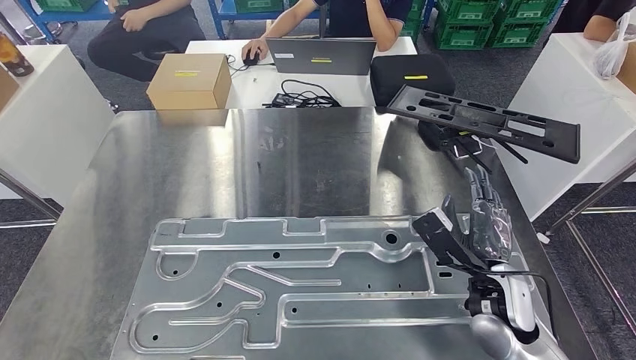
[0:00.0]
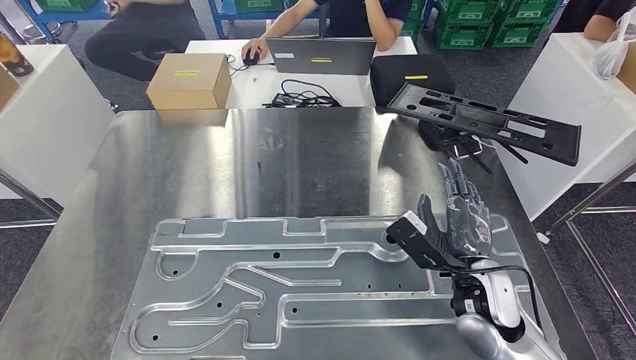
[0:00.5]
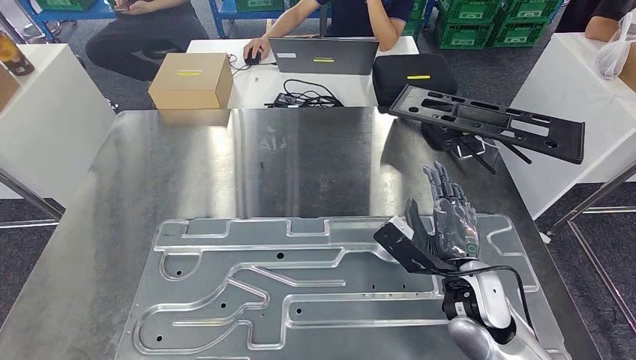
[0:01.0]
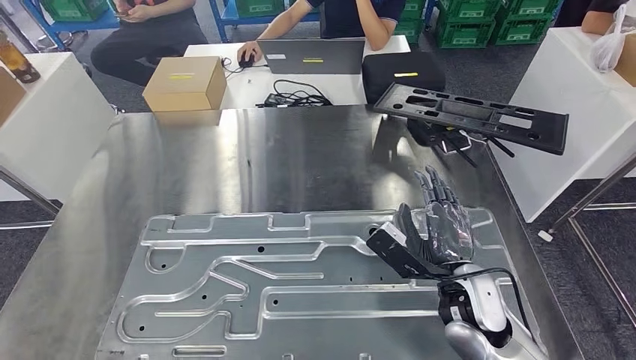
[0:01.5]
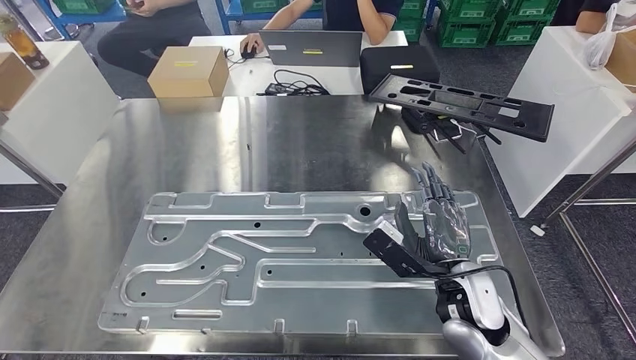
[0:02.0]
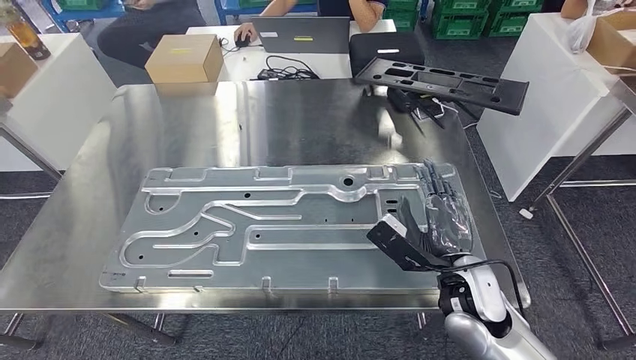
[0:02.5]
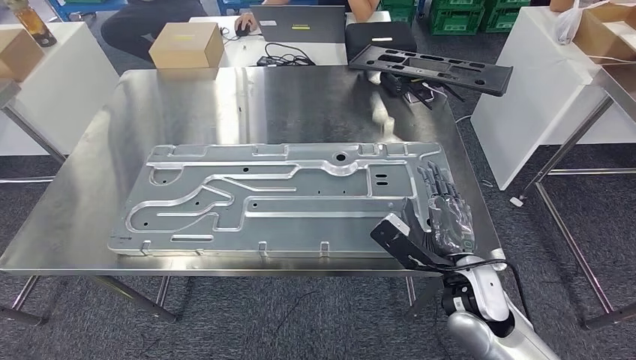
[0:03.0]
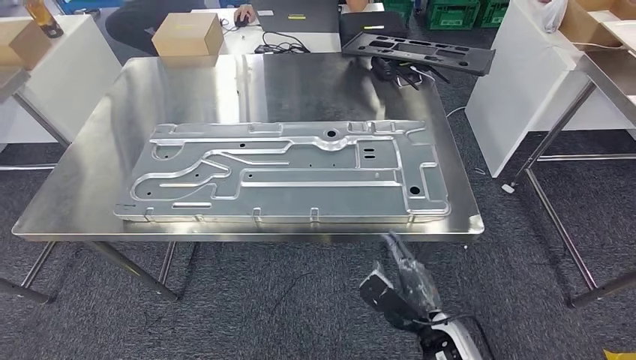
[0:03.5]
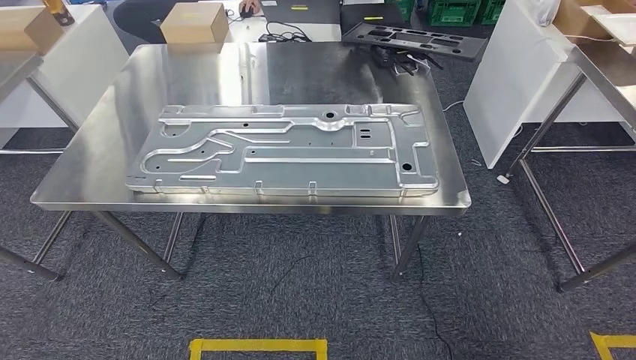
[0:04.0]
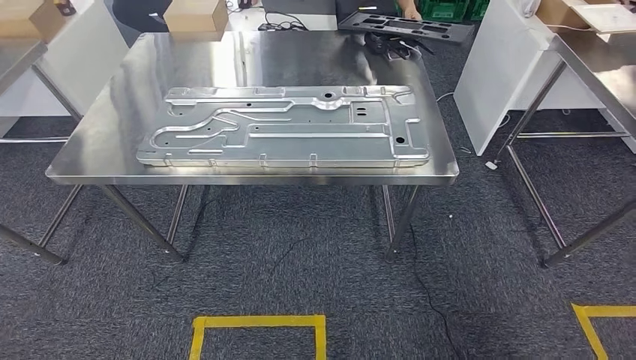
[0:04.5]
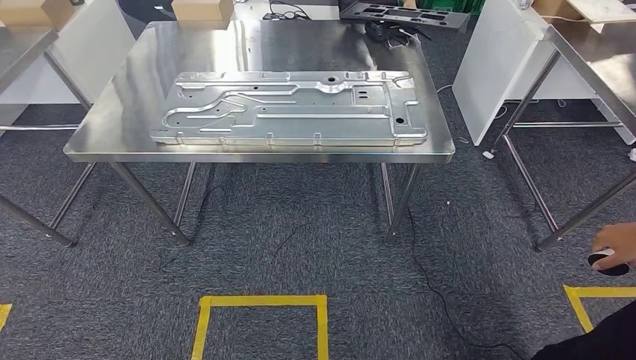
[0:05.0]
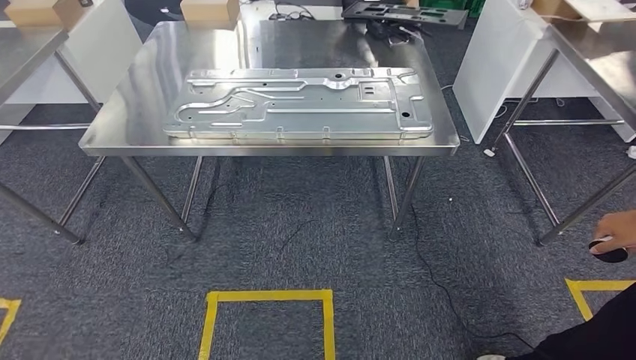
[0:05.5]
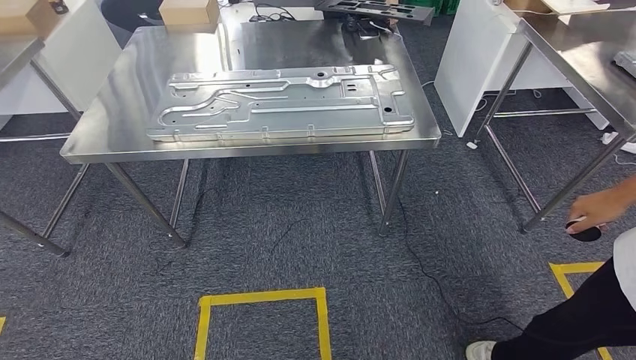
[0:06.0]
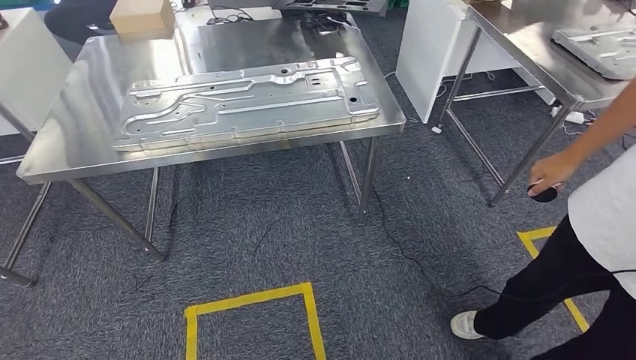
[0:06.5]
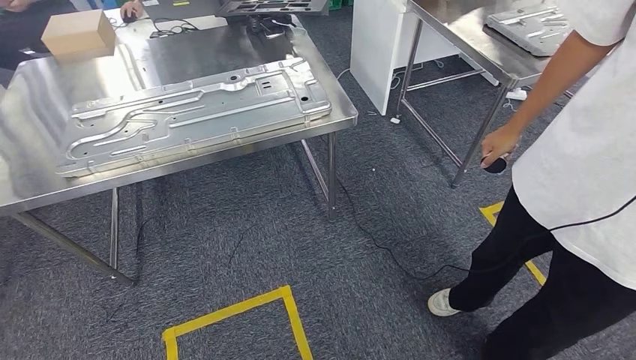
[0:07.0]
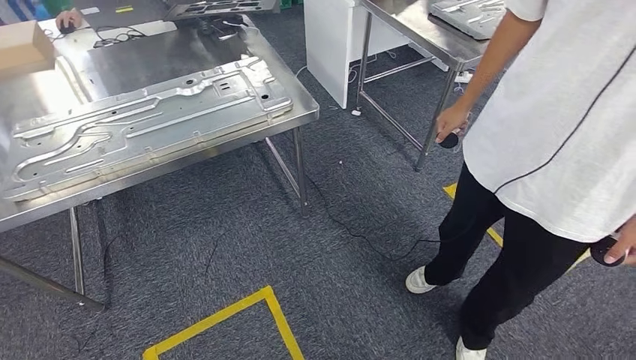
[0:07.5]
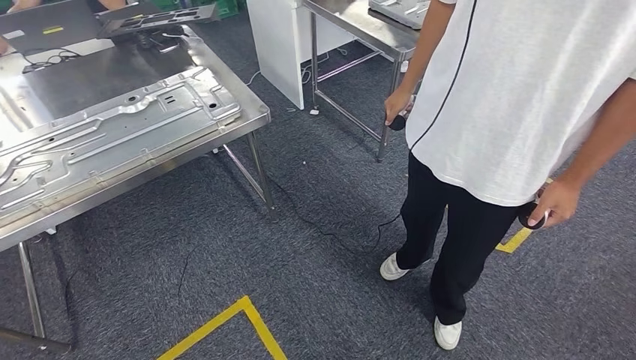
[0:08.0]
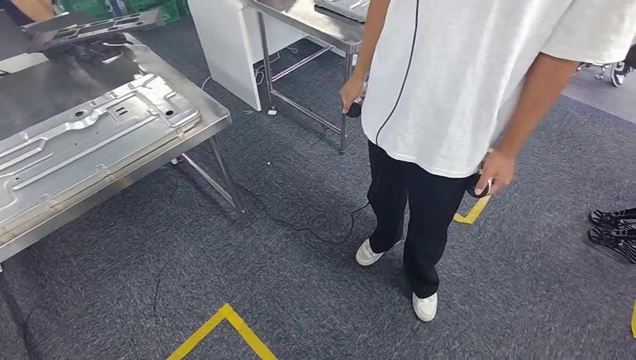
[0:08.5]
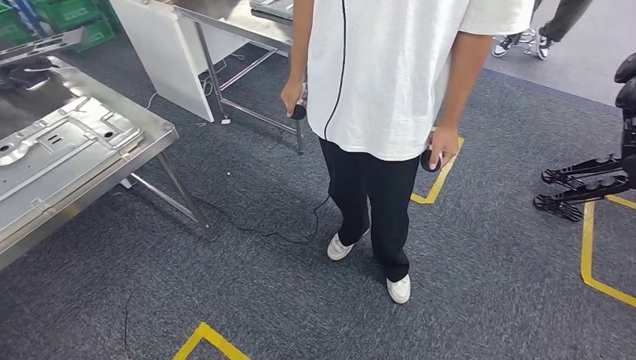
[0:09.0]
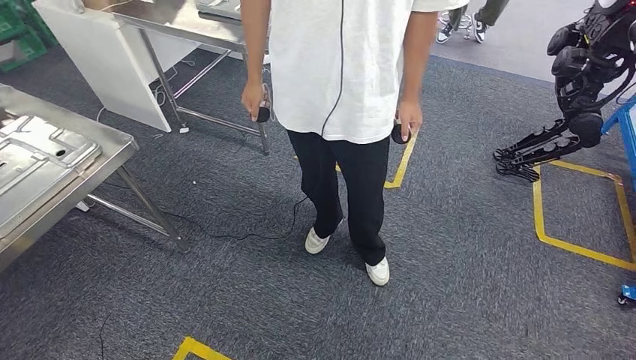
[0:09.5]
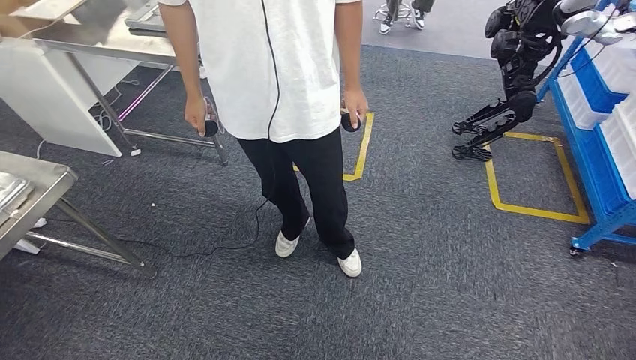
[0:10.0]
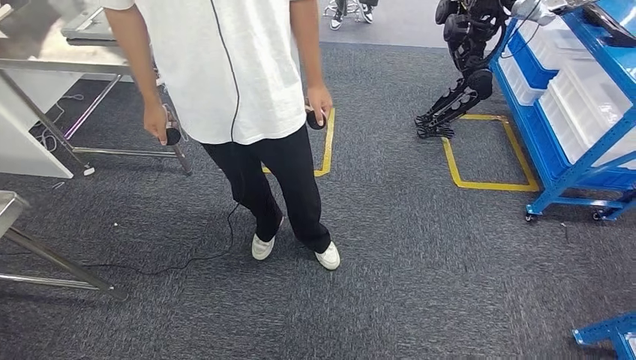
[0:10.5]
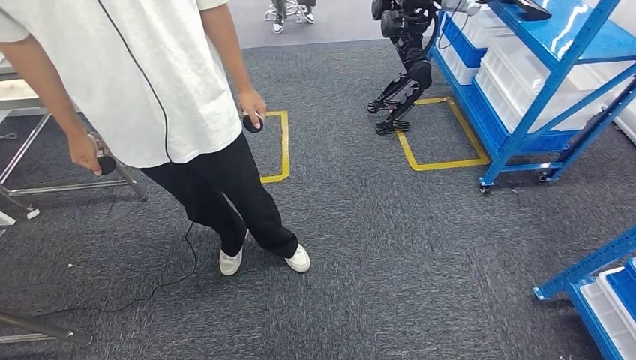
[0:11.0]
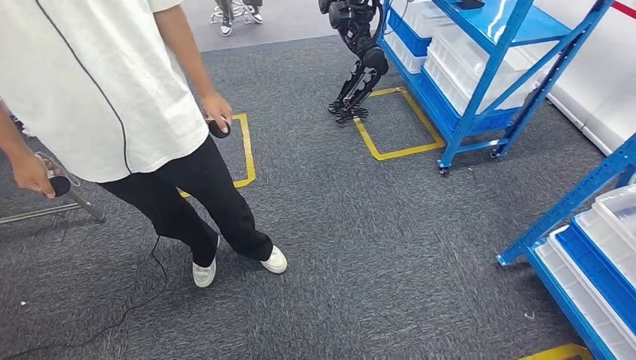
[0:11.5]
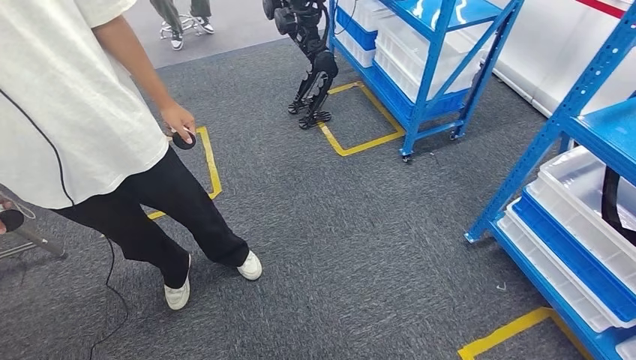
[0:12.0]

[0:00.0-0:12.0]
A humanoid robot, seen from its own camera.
Step, 0:00.0 to 0:02.0: Insert the large parts into the corresponding slots on the workbench.

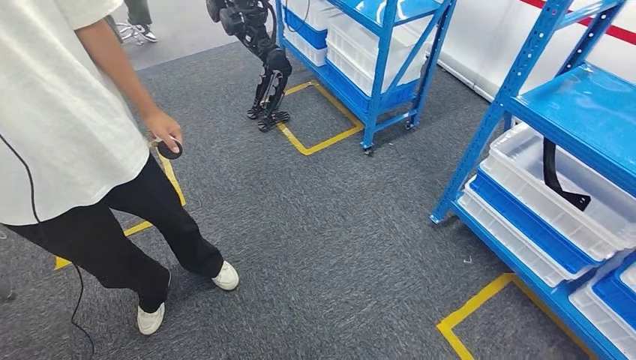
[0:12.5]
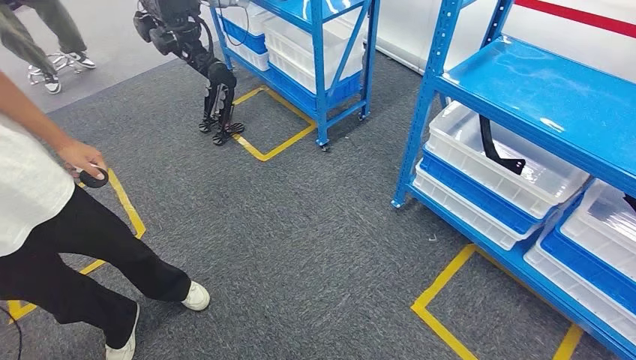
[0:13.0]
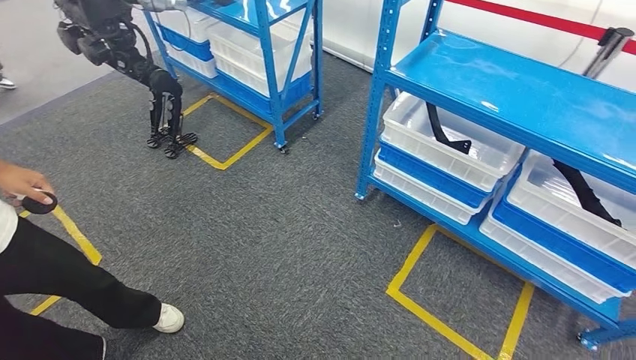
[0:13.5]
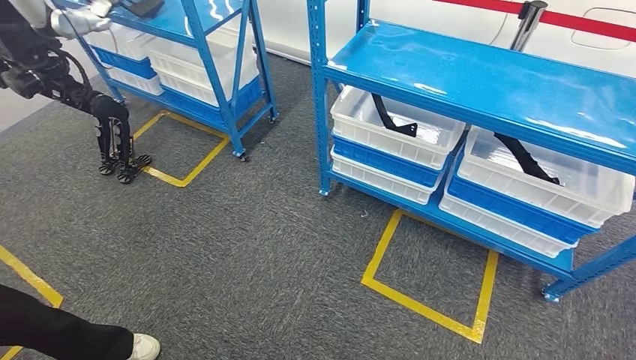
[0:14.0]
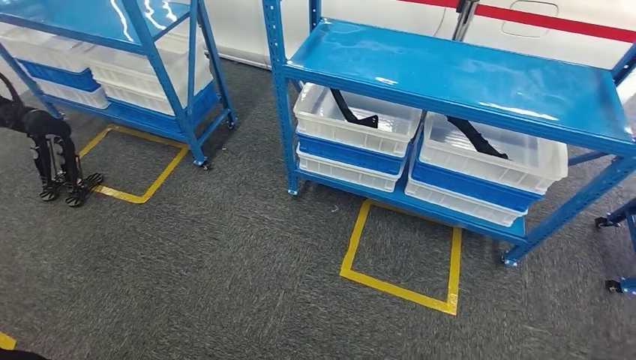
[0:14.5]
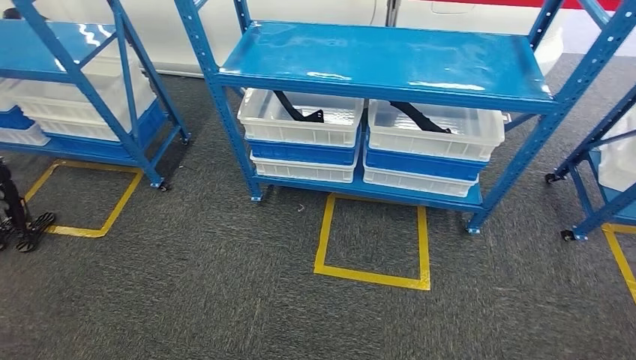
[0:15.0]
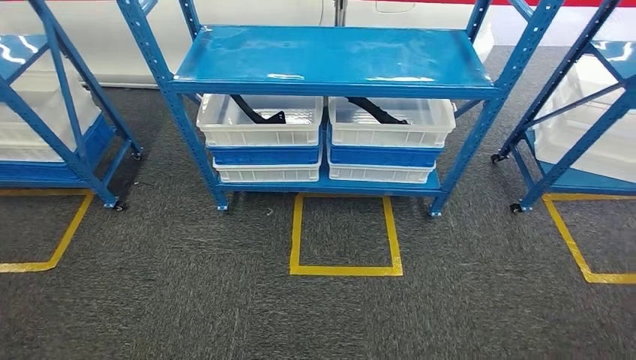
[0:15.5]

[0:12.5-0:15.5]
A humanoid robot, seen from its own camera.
Step, 0:12.5 to 0:15.5: Return to the initial position at the shelf.
